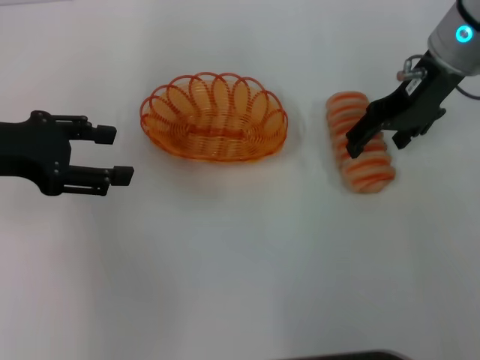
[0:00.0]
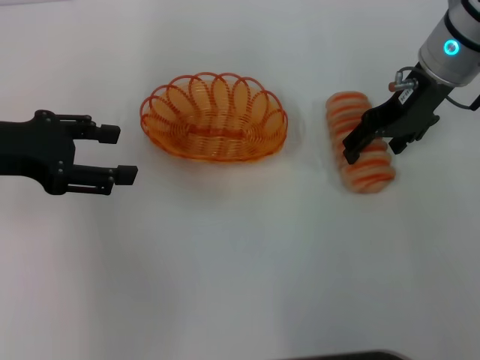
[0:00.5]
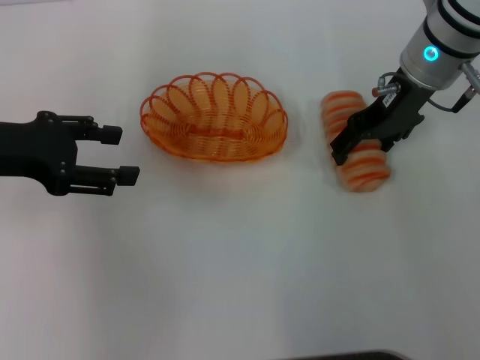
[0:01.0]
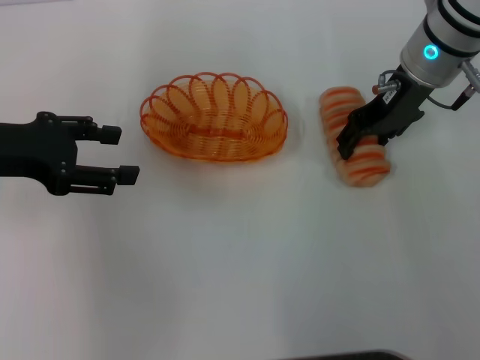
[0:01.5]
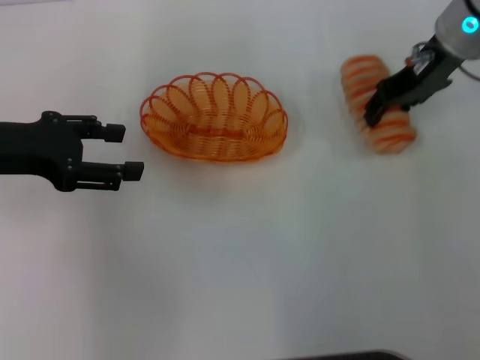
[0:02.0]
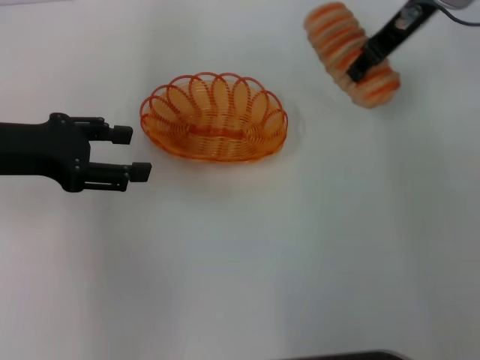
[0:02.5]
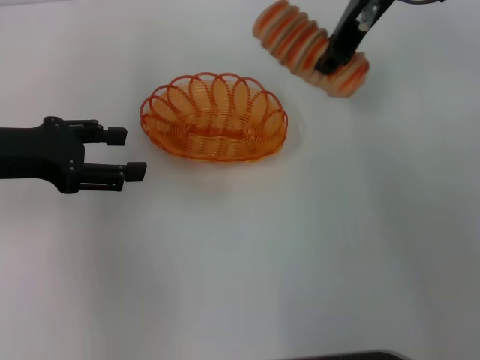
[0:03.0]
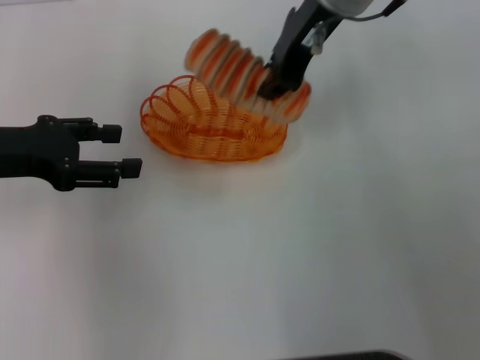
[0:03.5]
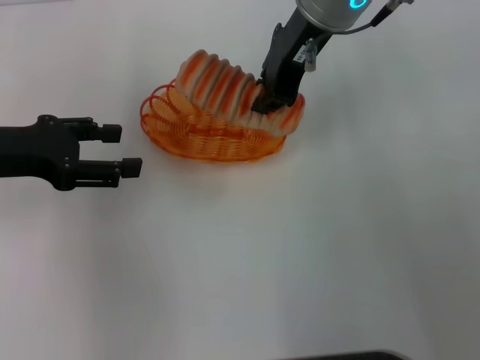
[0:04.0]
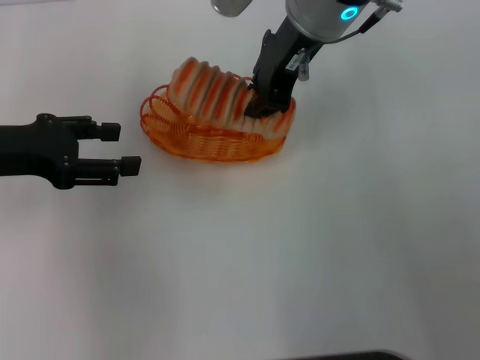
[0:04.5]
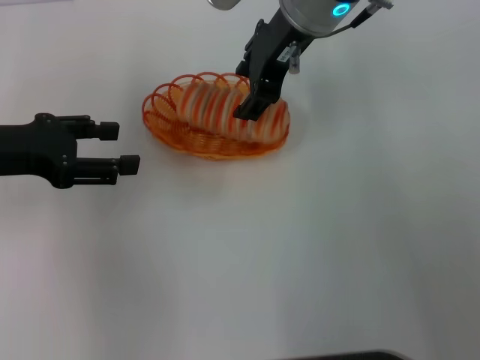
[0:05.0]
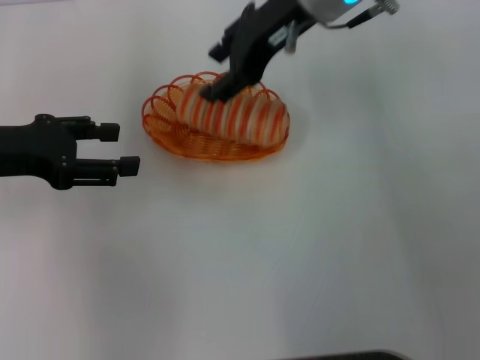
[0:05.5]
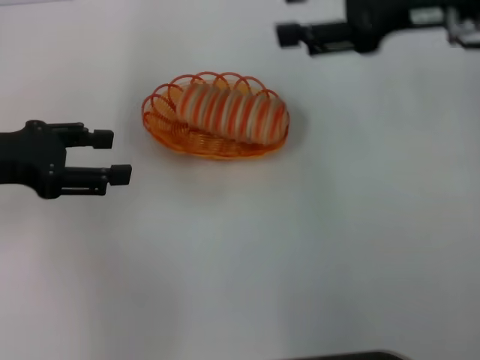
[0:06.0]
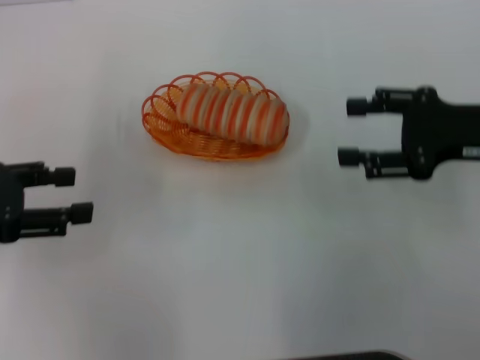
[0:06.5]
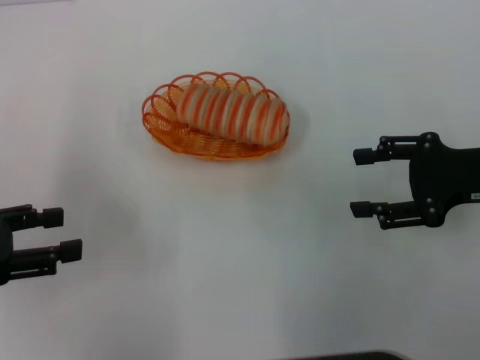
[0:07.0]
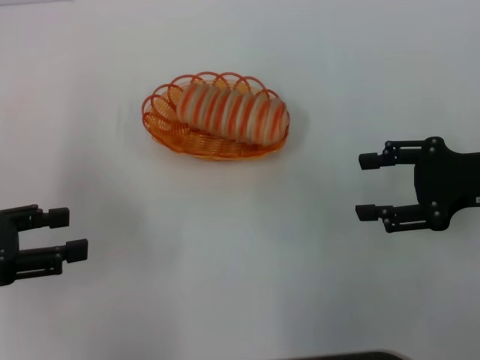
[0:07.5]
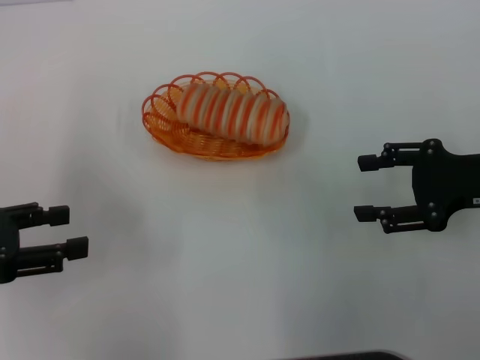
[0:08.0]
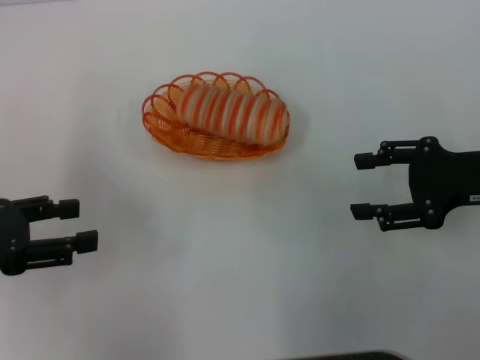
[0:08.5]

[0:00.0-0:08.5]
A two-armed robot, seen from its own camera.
Step, 0.0 to 2.0 s: Pick up the long bread with the right gripper.
Step, 3.0 to 5.5 s: Place the long bread into the basket with the right gripper.
0.0 to 2.0 s: The right gripper closes up.
2.0 to 4.0 s: The right gripper heads to the left, covering some 15 cm, and closes.
4.0 to 6.5 s: The right gripper travels to the right, backward and downward by roughly 25 cm, and opens its fingers, while the left gripper moves roughly 5 cm.
6.5 to 8.5 s: The grippers stay close to where they were, moving slightly.

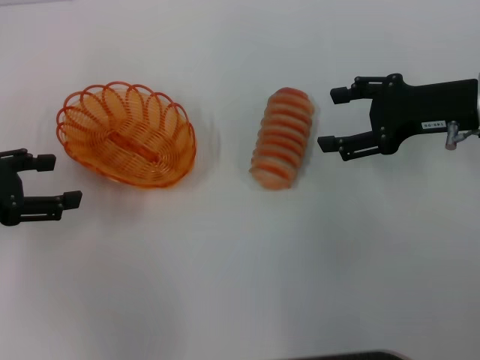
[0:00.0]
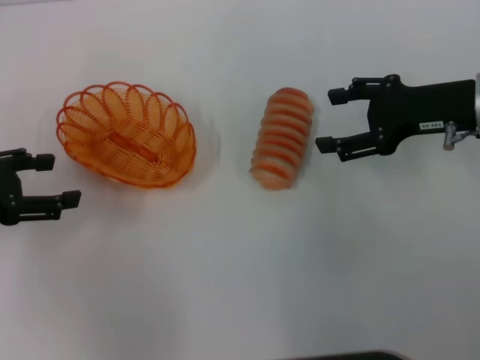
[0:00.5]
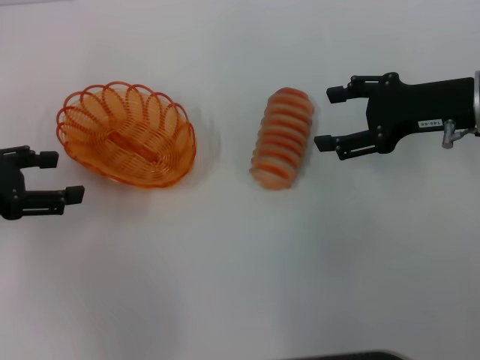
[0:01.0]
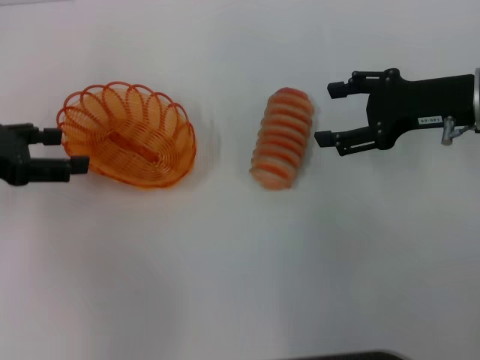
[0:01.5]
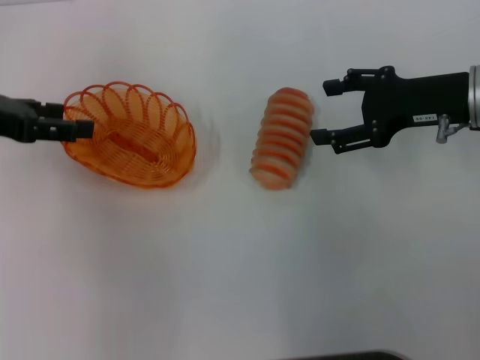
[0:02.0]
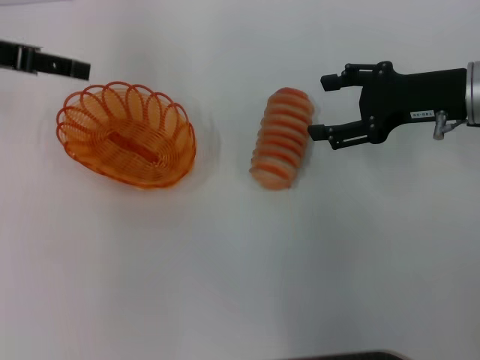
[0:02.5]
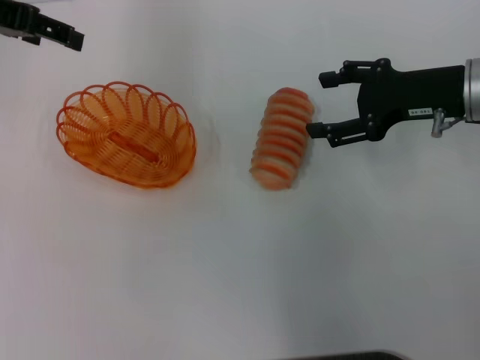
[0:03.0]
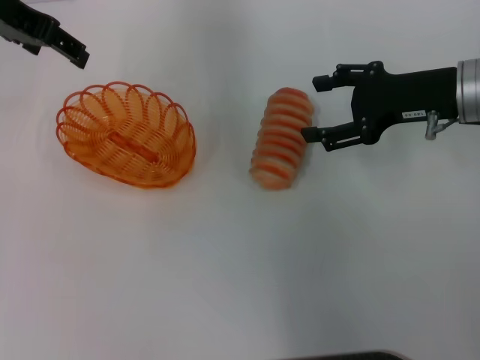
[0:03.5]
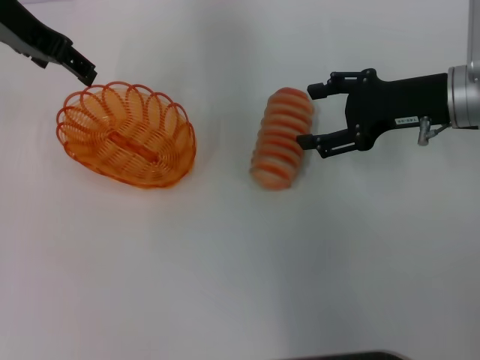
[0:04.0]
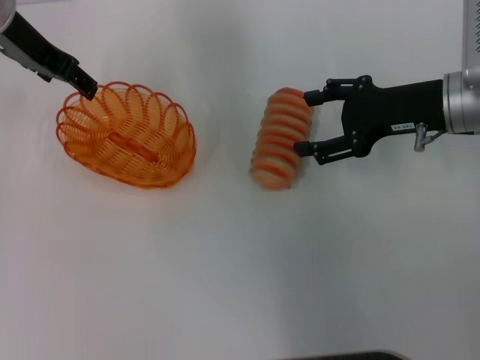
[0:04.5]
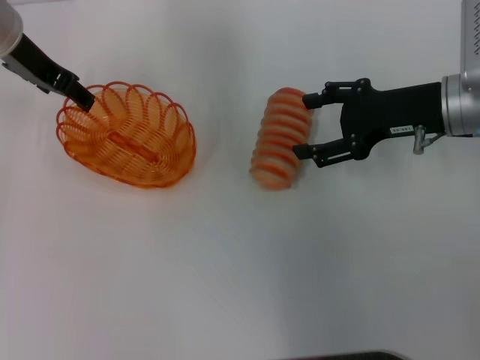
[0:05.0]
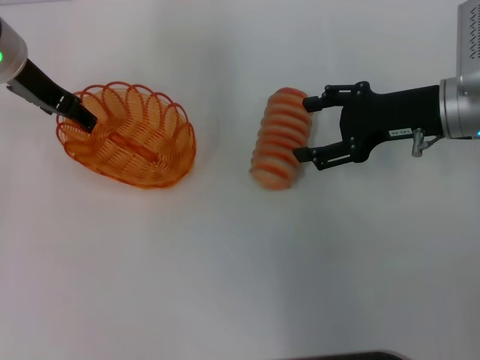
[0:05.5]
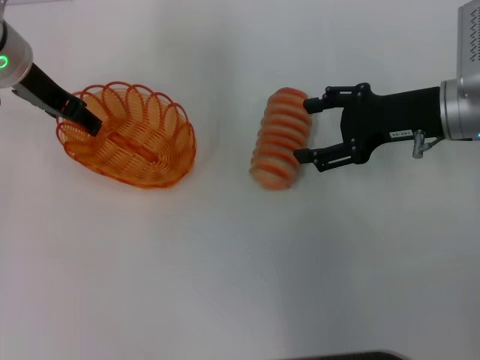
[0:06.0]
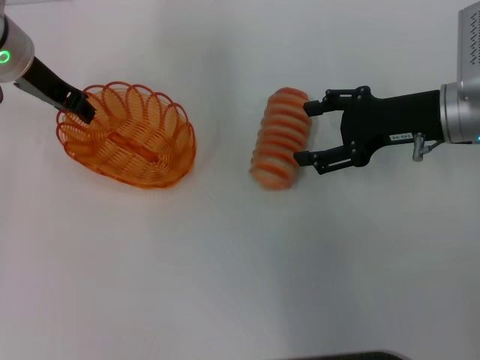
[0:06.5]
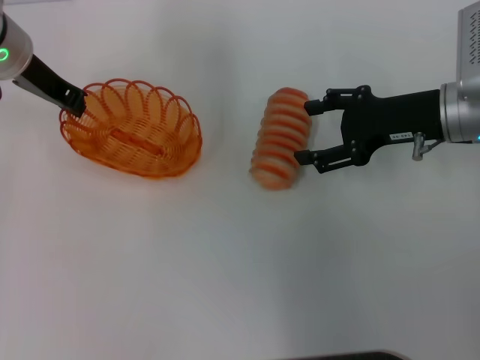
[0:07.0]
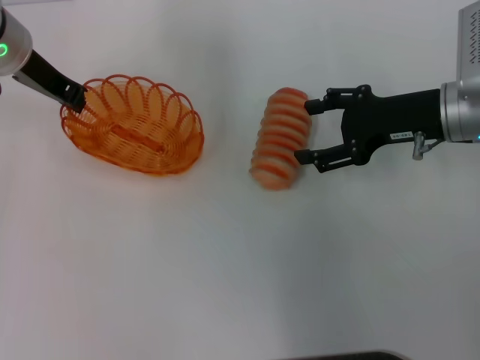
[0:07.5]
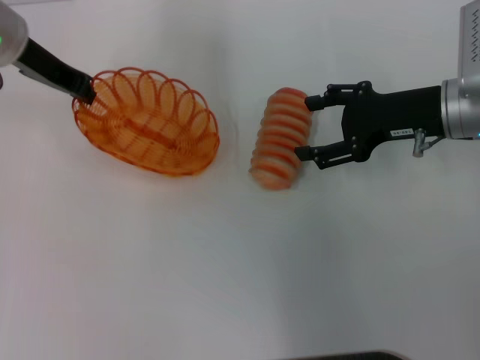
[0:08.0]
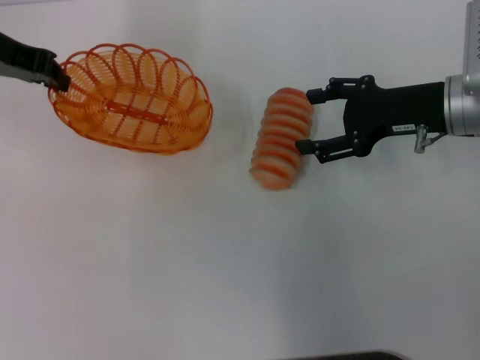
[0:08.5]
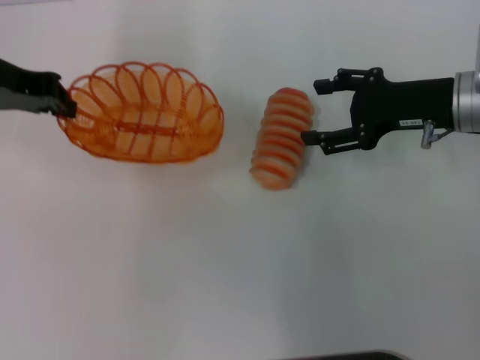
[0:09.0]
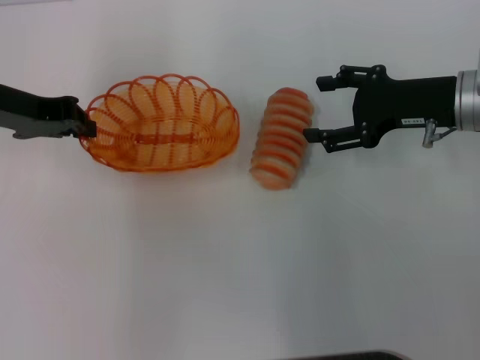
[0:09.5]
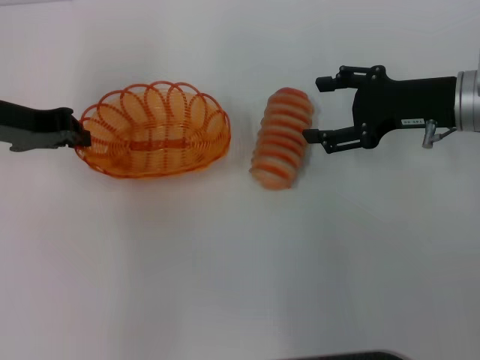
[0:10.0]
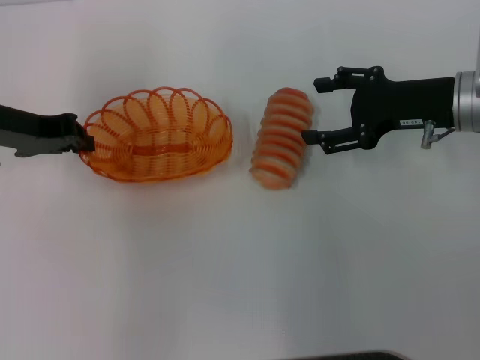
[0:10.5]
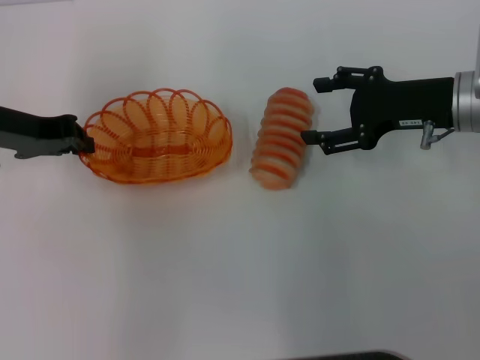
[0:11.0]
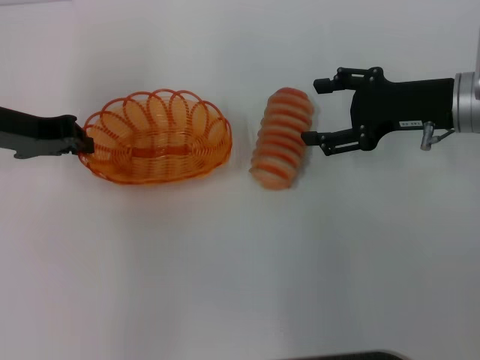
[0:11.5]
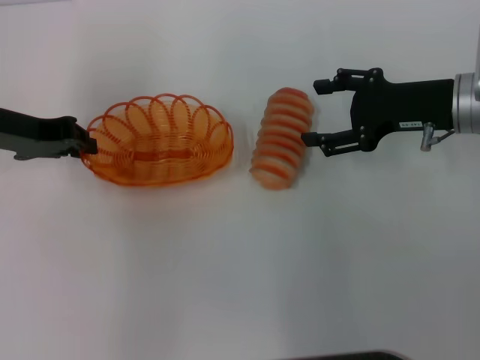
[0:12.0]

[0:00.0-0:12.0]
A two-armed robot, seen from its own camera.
Step, 0.0 to 8.0 s: Pick up the basket with the left gripper.
0.0 to 2.0 s: The left gripper moves forward, approximately 5 cm.
2.0 to 4.0 s: The left gripper goes some 15 cm to the right, forward and upward.
4.0 to 6.0 s: The left gripper travels downward by some 10 cm.
6.0 to 8.0 s: The left gripper closes.
8.0 to 10.0 s: The left gripper goes roughly 5 cm backward.
10.0 to 12.0 s: Both grippers stay about where they are.

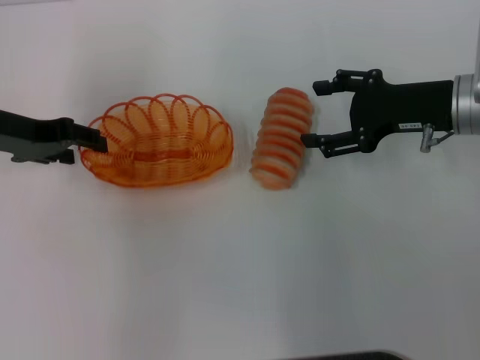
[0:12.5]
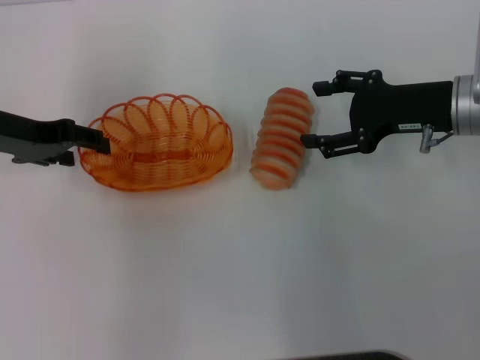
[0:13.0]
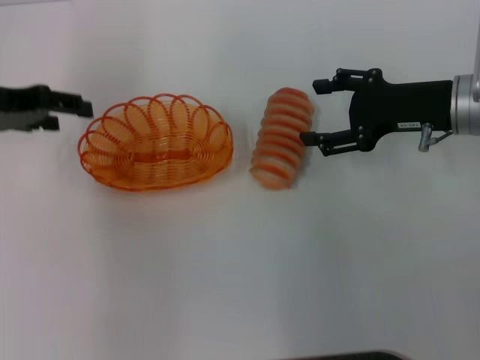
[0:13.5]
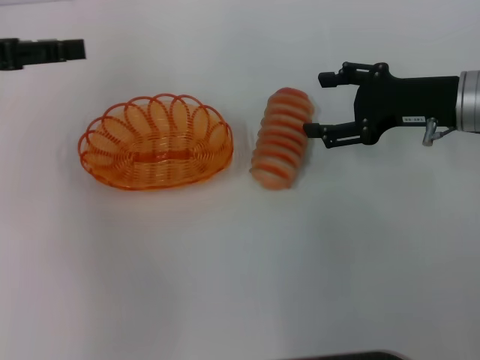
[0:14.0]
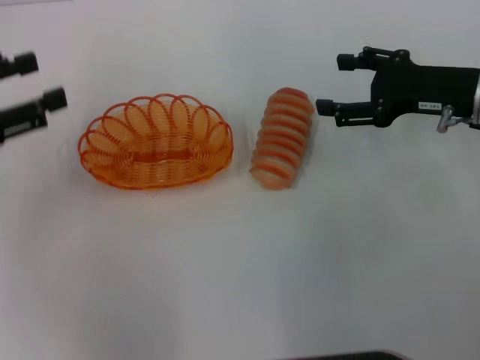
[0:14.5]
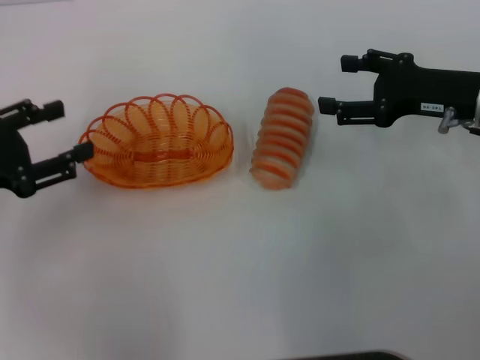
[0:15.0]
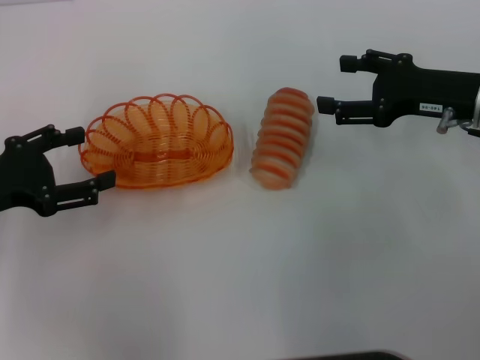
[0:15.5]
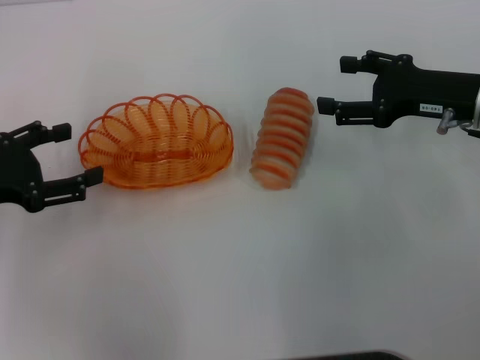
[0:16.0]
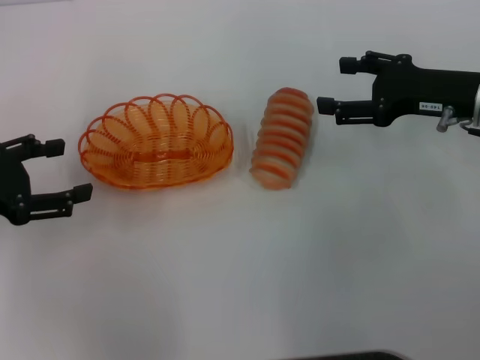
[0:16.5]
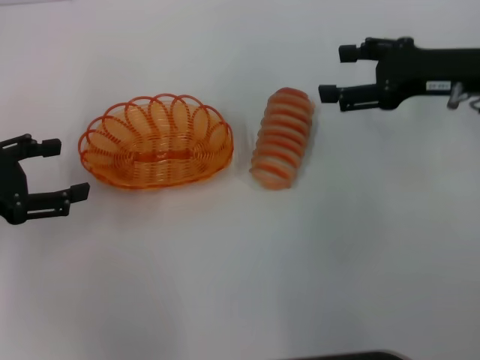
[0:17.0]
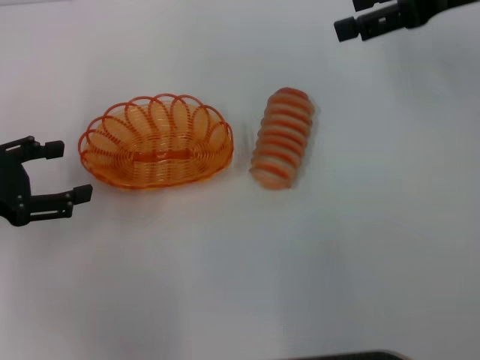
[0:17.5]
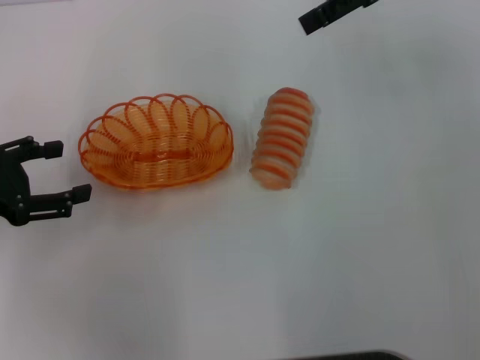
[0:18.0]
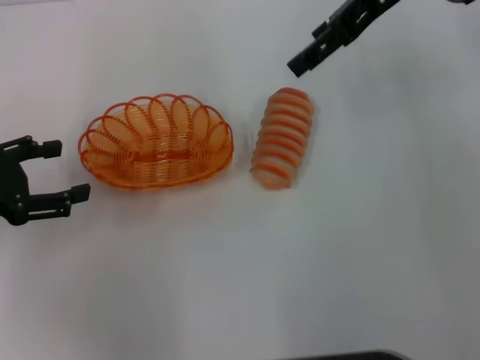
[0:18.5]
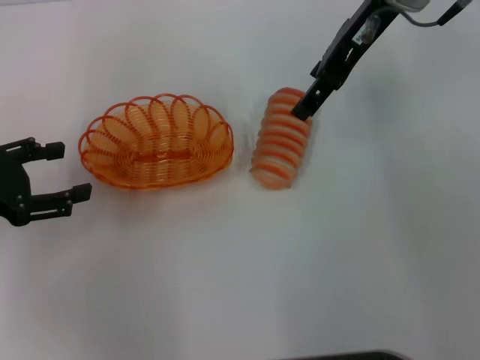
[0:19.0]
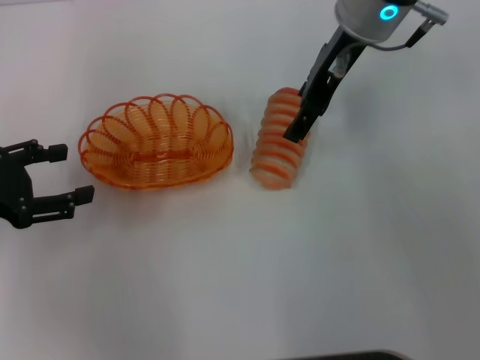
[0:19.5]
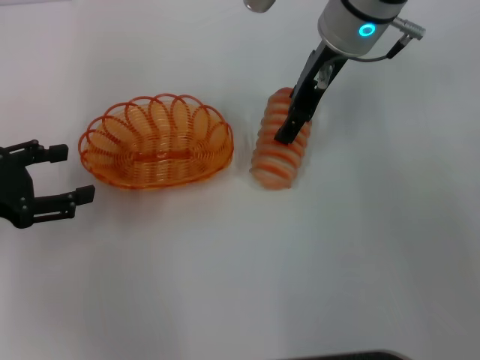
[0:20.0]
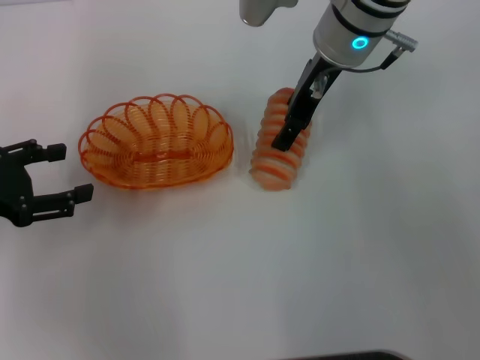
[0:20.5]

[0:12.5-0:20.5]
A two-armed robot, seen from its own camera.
12.5 to 14.5 s: The left gripper shifts approximately 10 cm backward and to the left, and opens.
16.5 to 18.5 s: The right gripper goes approximately 20 cm upward, to the left and forward.
18.5 to 20.5 s: The right gripper is displaced downward and to the left by roughly 10 cm.
